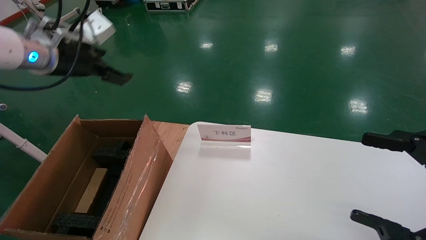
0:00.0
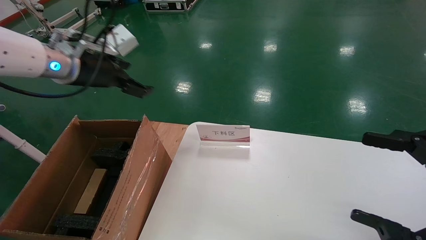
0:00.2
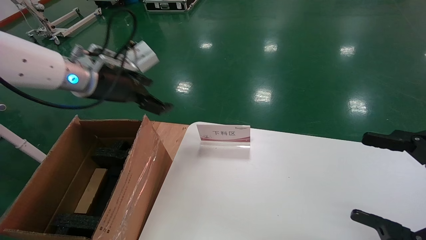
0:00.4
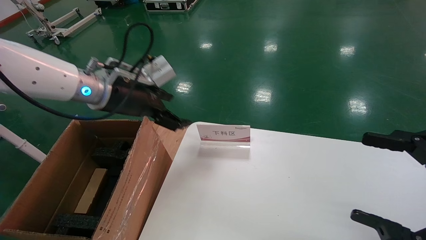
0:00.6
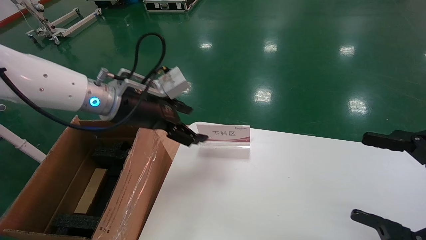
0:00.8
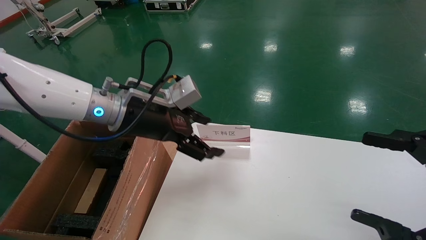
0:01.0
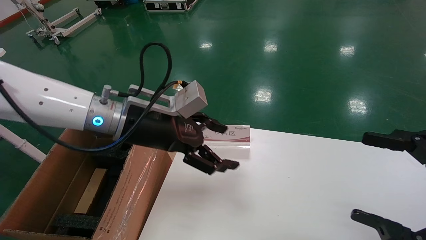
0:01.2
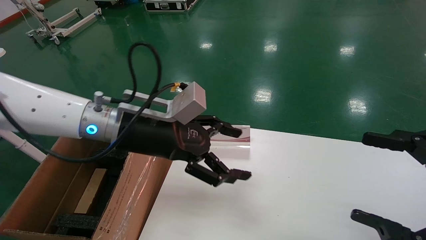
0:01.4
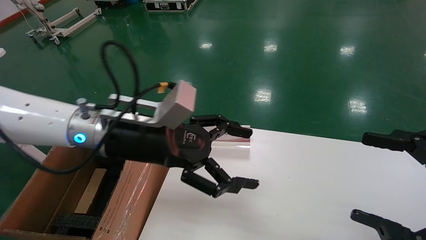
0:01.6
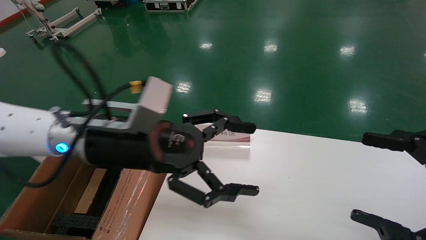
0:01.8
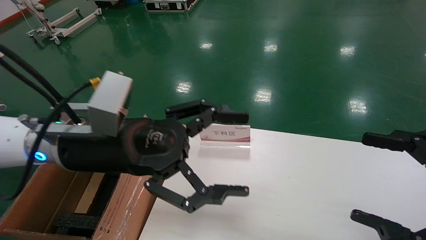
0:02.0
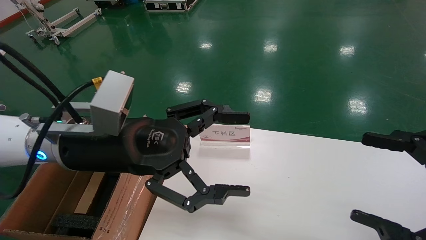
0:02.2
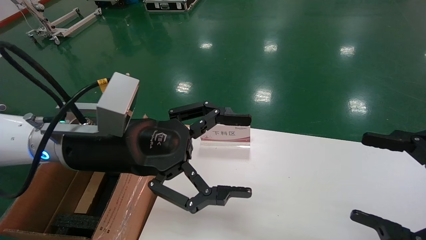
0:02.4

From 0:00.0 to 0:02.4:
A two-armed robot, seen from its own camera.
Task of the whole recording: pick up the small cardboard box and load it into the large cardboard box.
From 0:00.0 to 0:01.2: The left gripper travels to the right and downward by some 15 cm.
From 0:01.2 to 0:02.4: The left gripper travels backward by about 5 cm.
